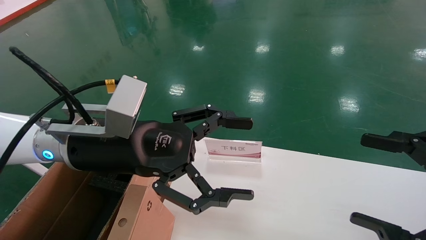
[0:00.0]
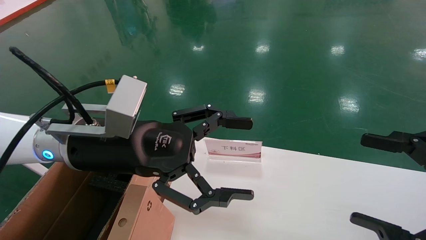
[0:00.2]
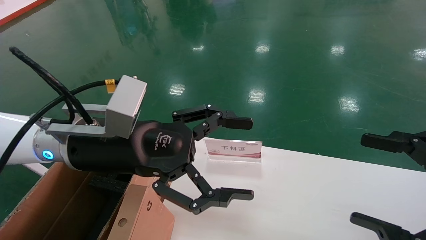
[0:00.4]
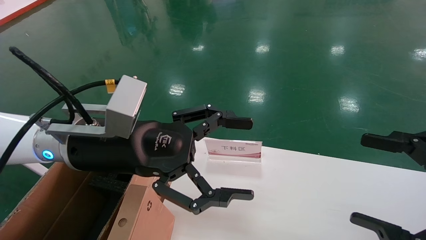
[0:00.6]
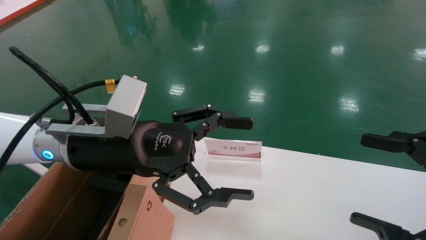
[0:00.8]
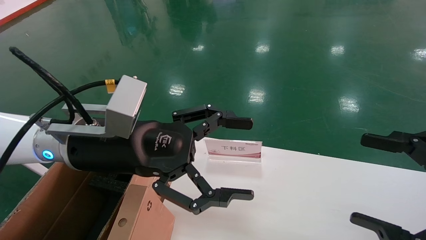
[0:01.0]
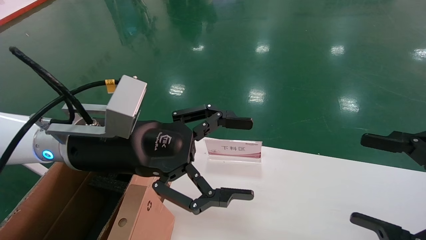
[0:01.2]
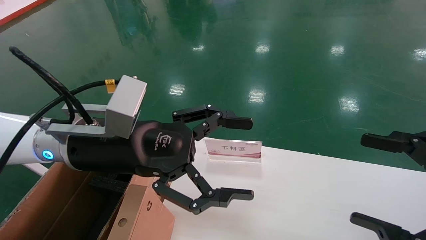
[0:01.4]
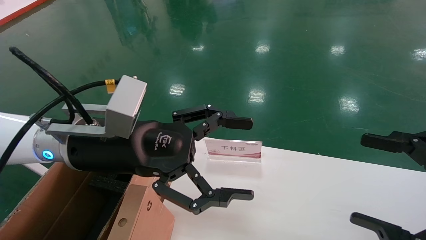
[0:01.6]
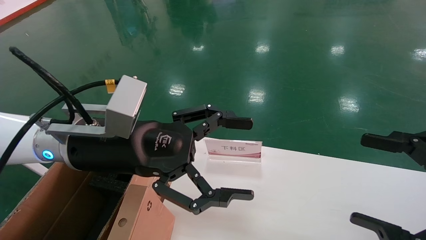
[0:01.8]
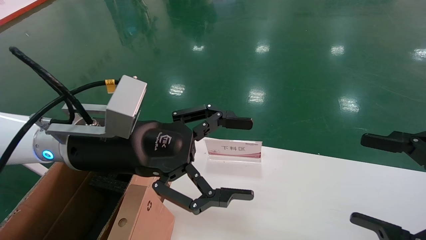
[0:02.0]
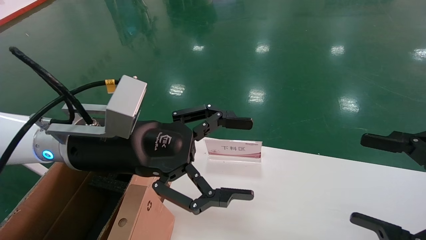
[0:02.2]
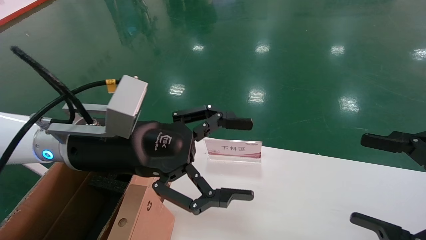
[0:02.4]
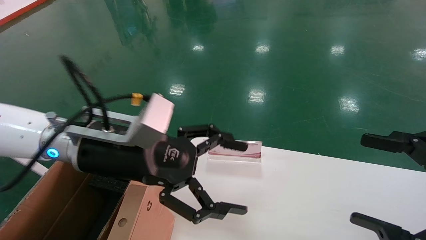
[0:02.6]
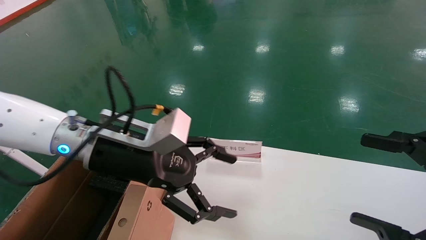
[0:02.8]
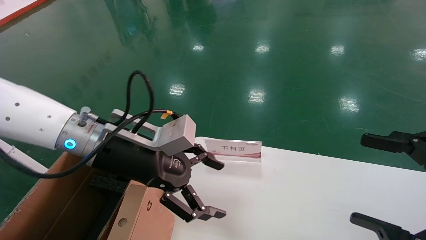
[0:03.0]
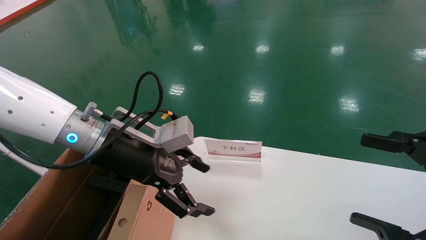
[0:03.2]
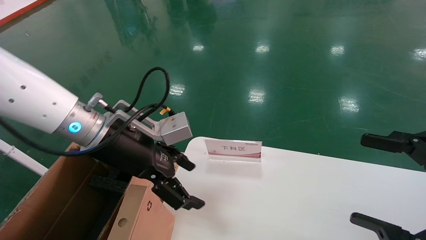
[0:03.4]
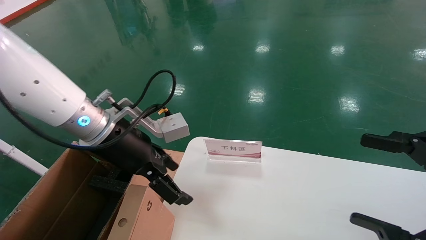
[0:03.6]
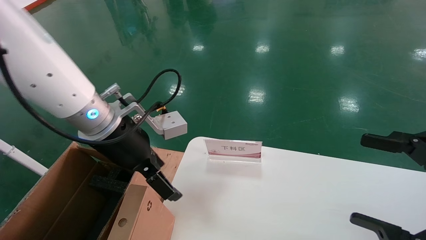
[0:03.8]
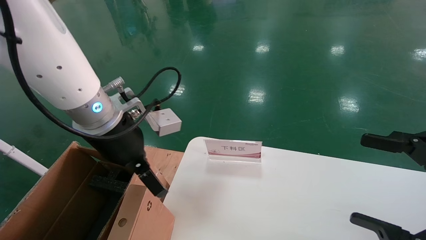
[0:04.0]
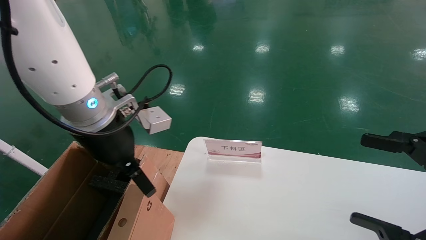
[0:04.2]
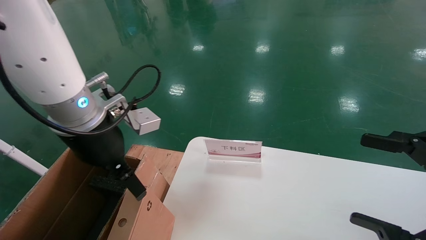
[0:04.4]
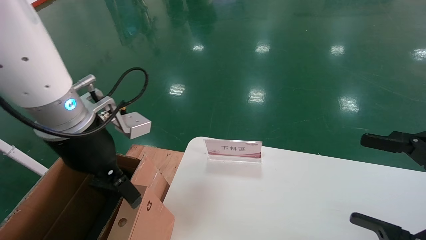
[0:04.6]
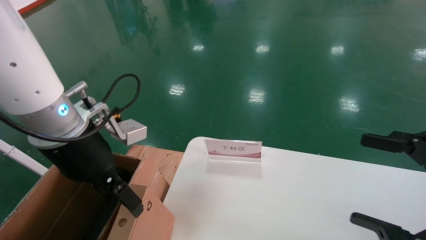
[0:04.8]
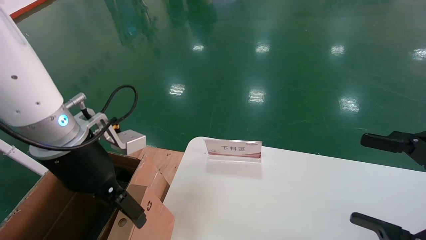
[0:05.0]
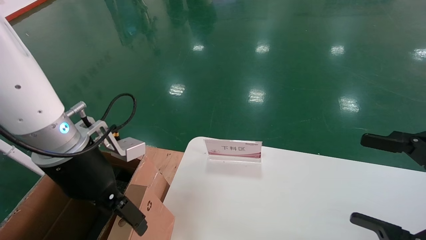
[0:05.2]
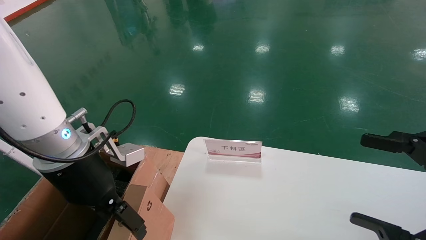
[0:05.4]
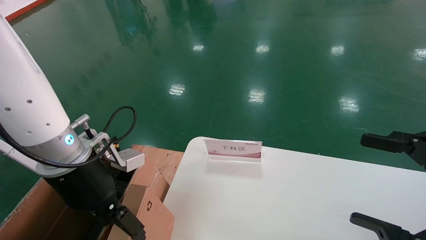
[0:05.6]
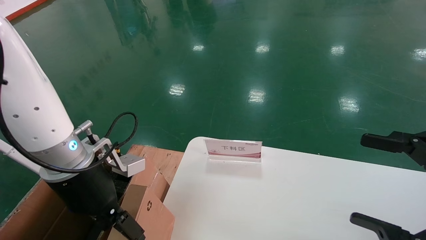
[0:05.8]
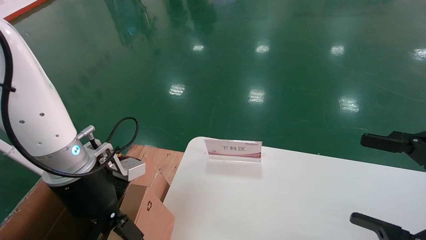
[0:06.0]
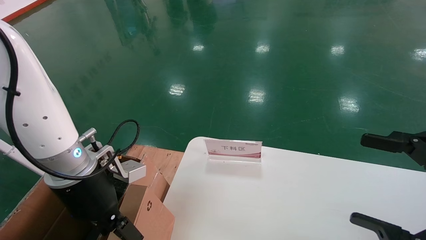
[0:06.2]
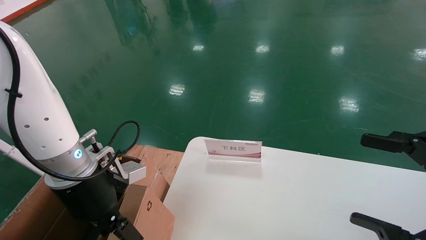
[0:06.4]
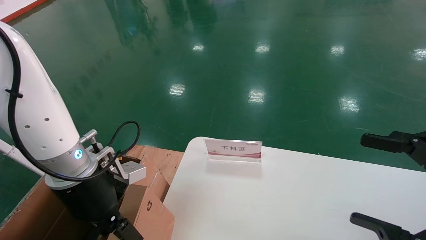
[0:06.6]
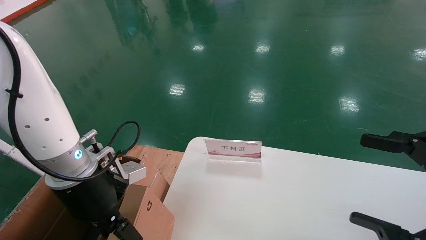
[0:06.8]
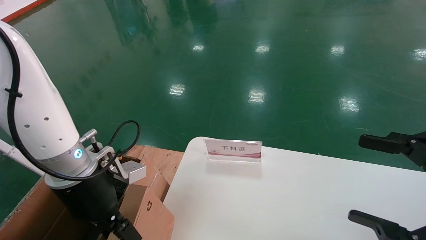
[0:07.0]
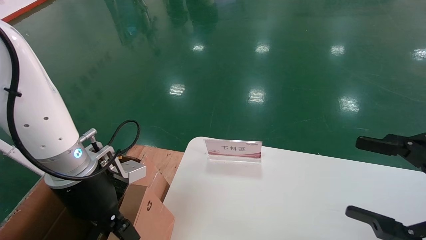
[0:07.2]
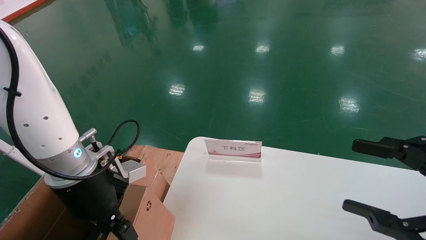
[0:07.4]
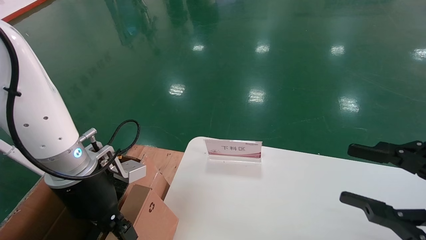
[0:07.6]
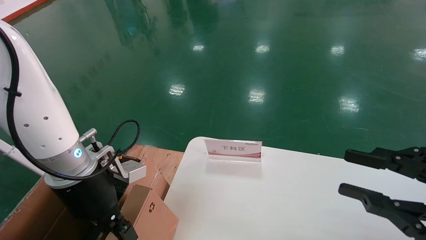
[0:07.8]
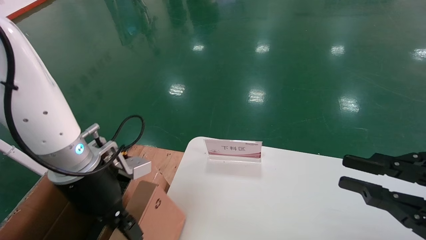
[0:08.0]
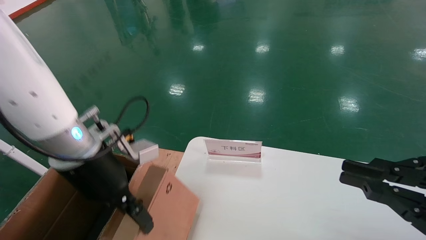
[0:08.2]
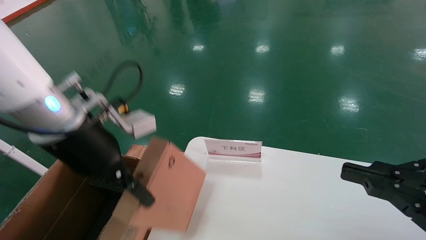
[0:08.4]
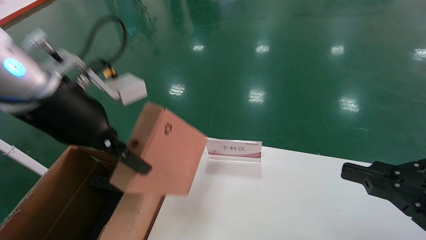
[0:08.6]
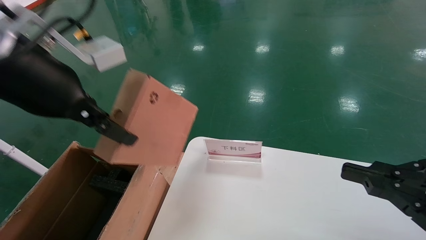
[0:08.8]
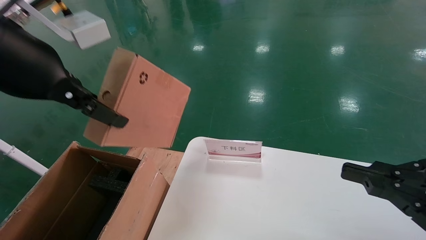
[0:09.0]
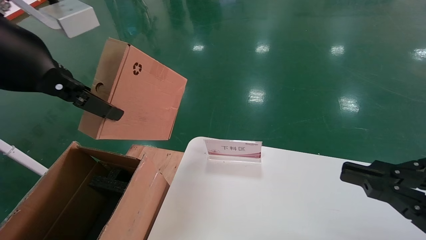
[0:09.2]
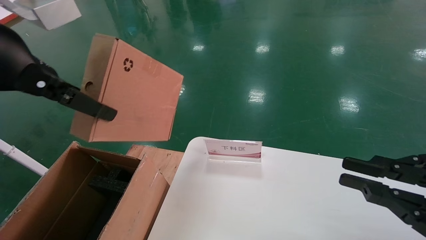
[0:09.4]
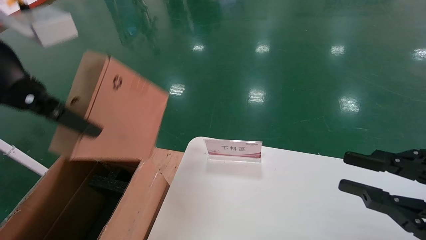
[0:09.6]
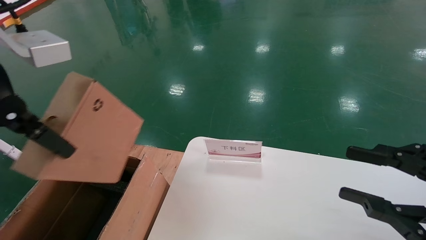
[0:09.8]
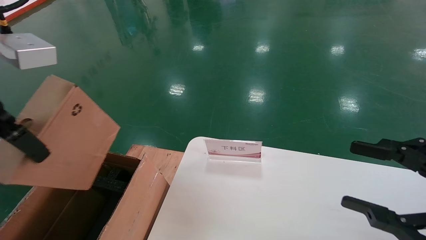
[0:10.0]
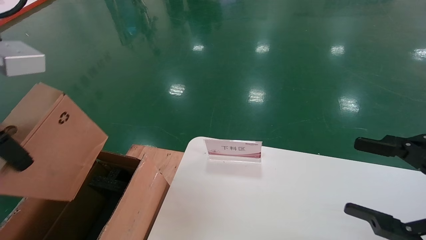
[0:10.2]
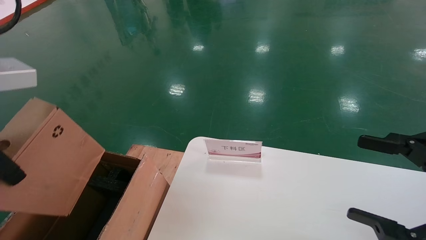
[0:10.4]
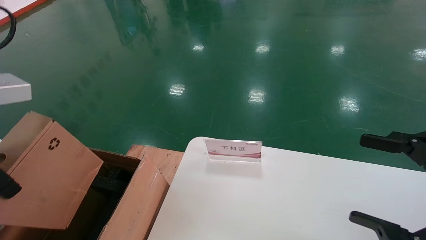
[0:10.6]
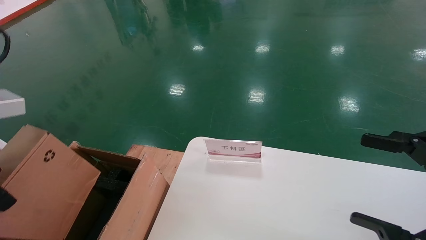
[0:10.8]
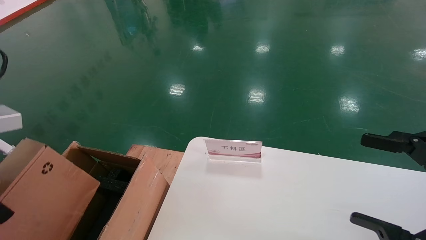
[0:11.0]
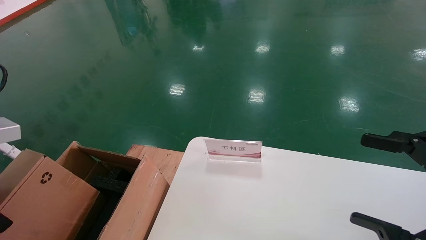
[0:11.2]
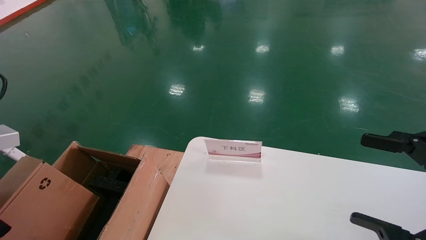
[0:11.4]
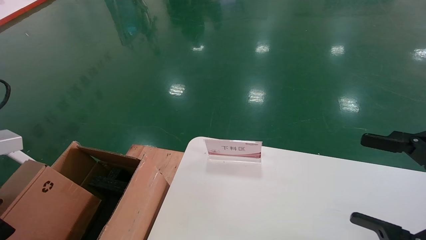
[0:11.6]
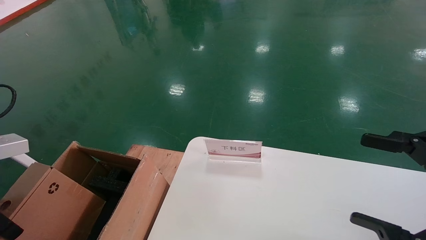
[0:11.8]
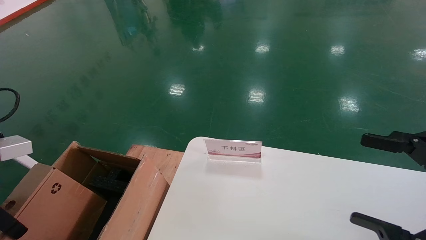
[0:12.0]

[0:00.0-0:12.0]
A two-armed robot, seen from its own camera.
Task of the whole recording: pick up the small cardboard box and load it into the large cardboard box.
Step, 0:02.8 to 0:07.8: Pick up the mouse and power cord box.
0:00.0 to 0:01.6: Both grippers stay put.
0:03.0 to 0:04.4: The left gripper travels upward by approximately 5 cm.
0:04.4 to 0:06.0: The left gripper goes about 10 cm downward.
0:06.0 to 0:07.6: The left gripper closes.
0:07.6 to 0:09.0: The right gripper closes up, while the left gripper shifts some 20 cm upward.
0:09.0 to 0:10.4: The right gripper opens up; the left gripper moves about 5 cm.
0:10.4 to 0:12.0: The left gripper goes about 15 cm downward and to the left.

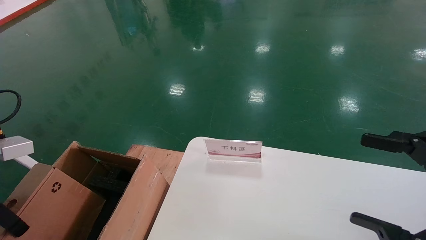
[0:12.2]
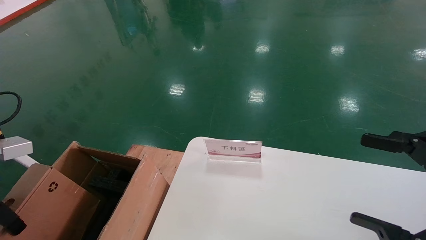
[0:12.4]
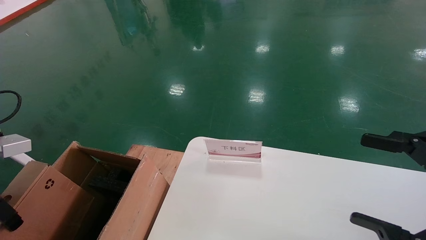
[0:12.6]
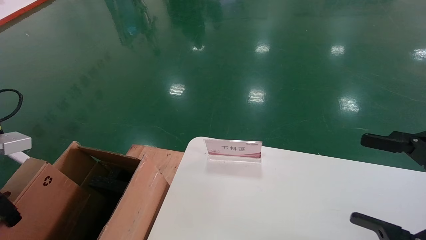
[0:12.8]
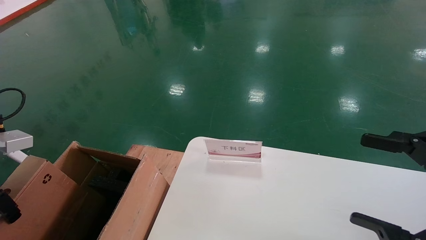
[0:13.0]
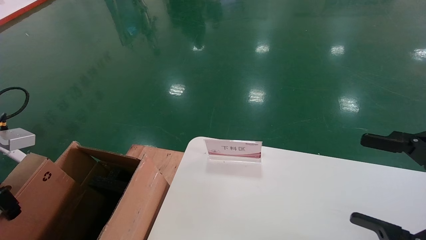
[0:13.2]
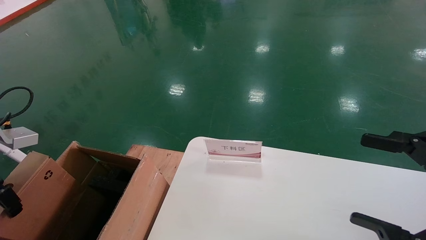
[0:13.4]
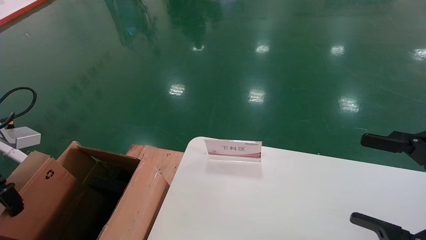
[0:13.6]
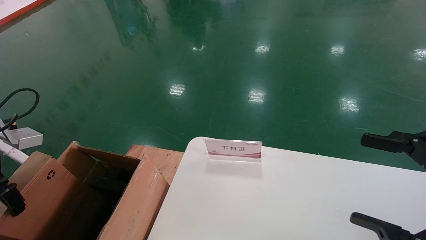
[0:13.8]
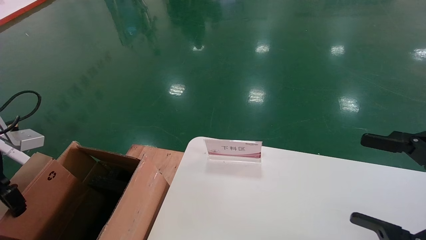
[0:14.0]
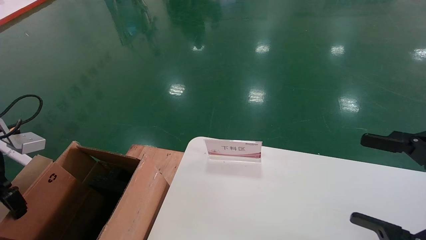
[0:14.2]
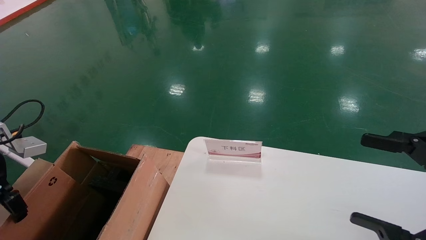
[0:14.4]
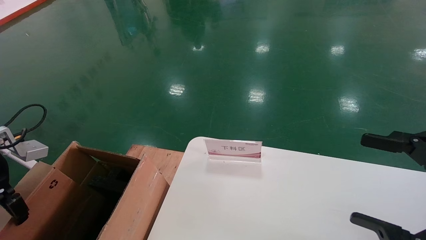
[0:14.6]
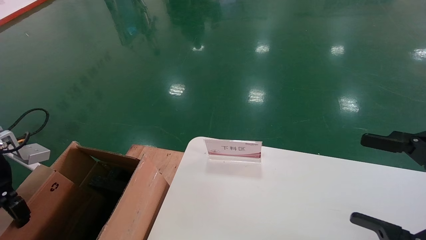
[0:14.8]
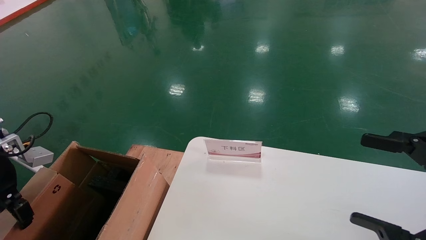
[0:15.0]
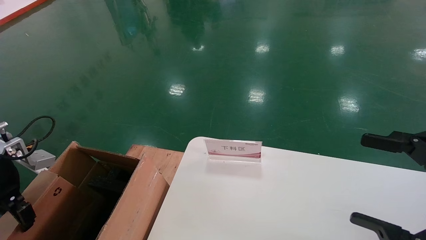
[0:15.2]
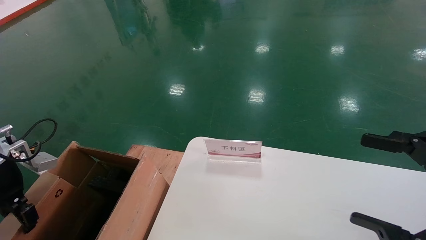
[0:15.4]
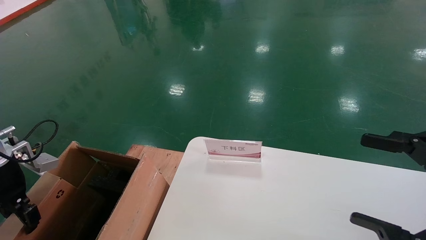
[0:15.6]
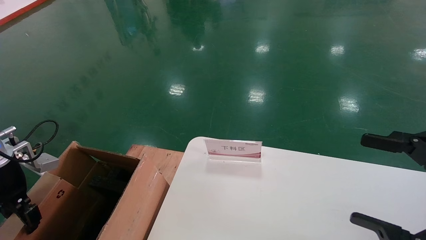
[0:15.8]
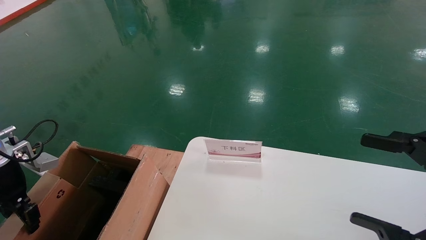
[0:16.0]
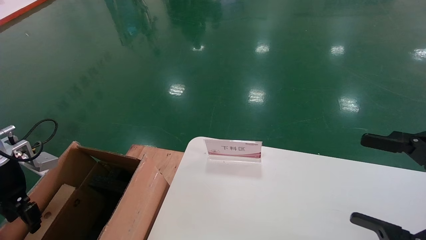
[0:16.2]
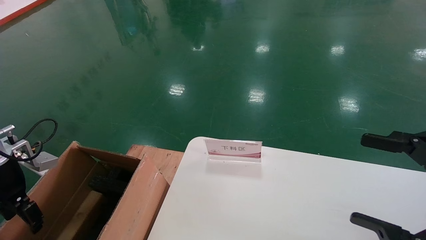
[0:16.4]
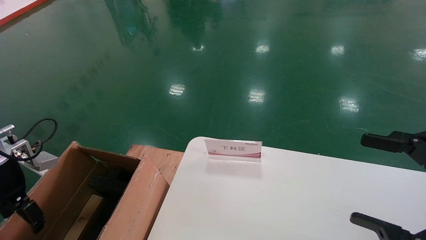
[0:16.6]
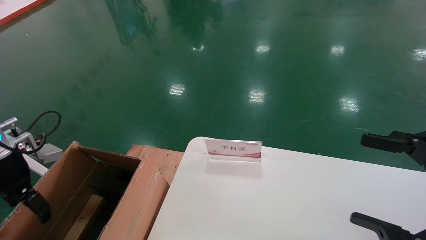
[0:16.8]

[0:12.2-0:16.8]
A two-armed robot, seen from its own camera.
Task of the whole recording: pick up the small cardboard box and load it into the large cardboard box.
0:12.2 to 0:13.8: The left gripper changes place by roughly 5 cm.
0:13.8 to 0:15.2: The left gripper goes some 5 cm downward.
0:15.2 to 0:16.8: The left gripper opens its fingers.
